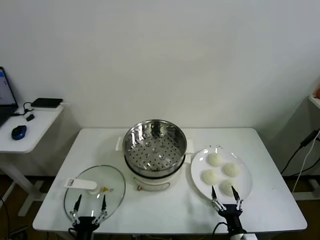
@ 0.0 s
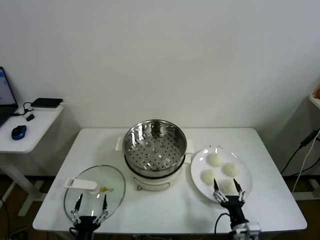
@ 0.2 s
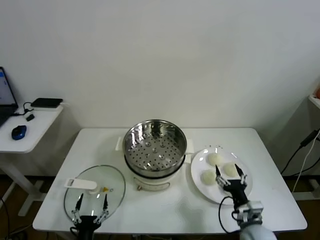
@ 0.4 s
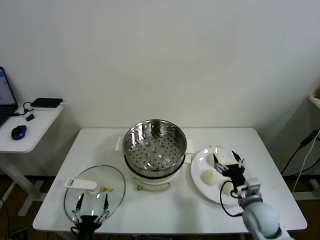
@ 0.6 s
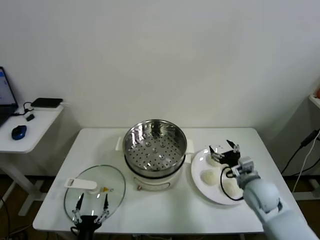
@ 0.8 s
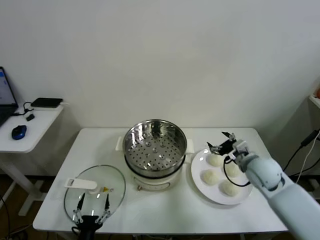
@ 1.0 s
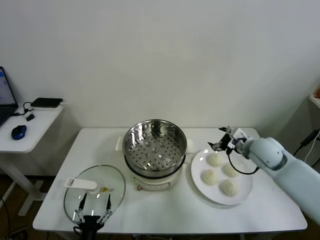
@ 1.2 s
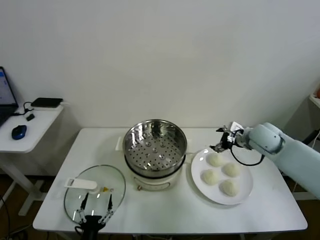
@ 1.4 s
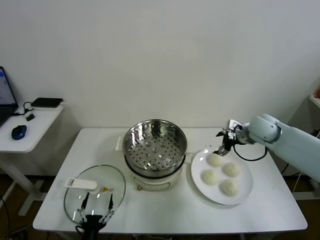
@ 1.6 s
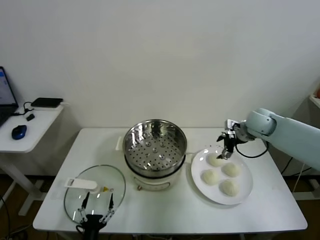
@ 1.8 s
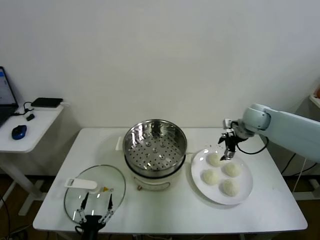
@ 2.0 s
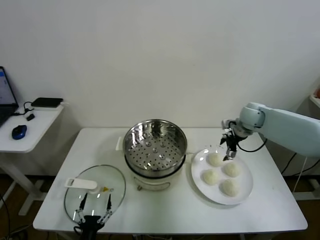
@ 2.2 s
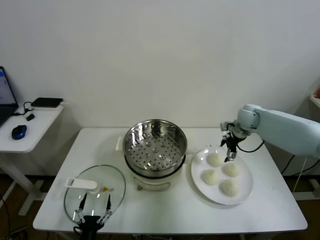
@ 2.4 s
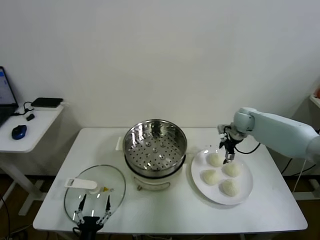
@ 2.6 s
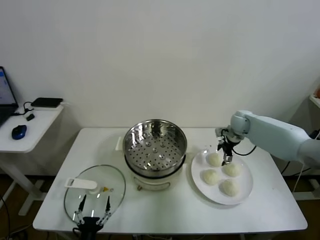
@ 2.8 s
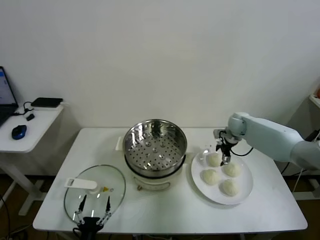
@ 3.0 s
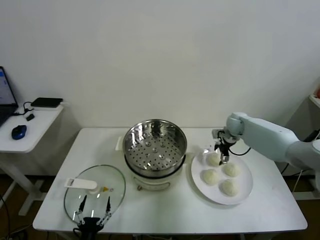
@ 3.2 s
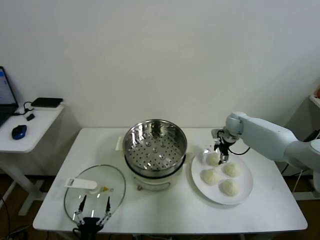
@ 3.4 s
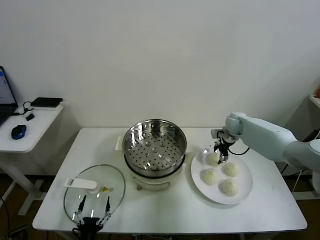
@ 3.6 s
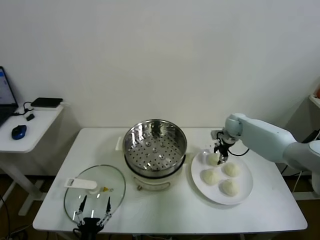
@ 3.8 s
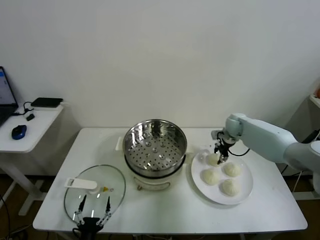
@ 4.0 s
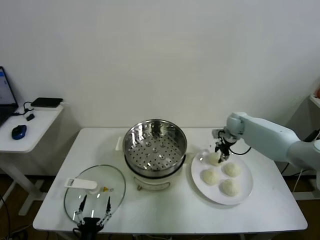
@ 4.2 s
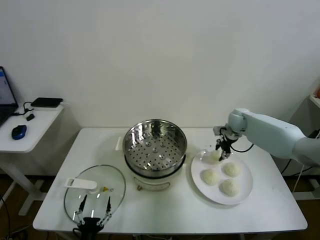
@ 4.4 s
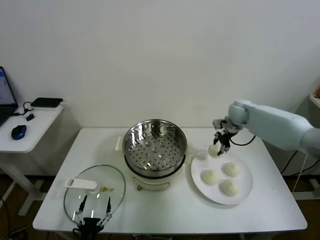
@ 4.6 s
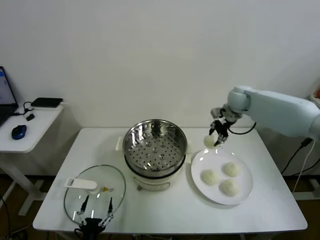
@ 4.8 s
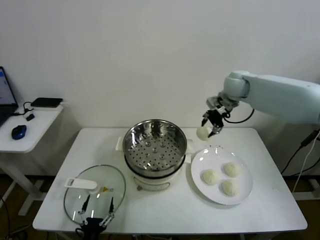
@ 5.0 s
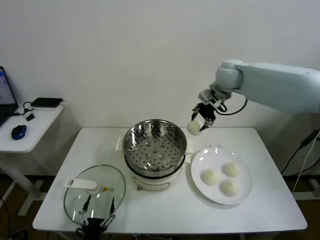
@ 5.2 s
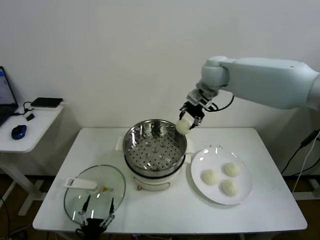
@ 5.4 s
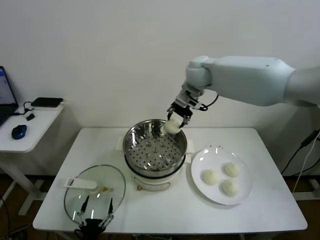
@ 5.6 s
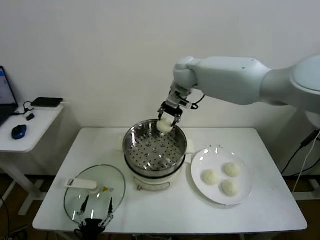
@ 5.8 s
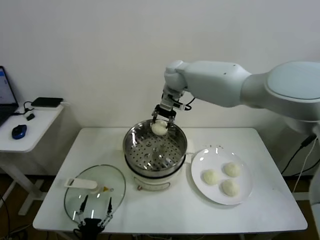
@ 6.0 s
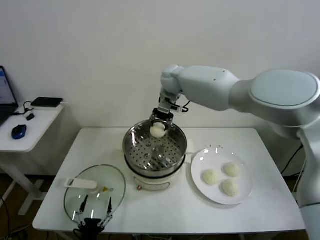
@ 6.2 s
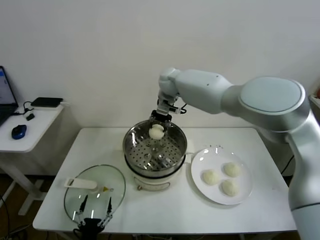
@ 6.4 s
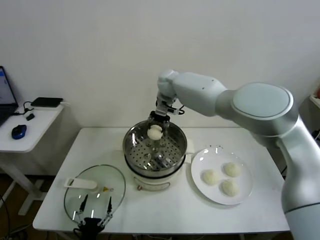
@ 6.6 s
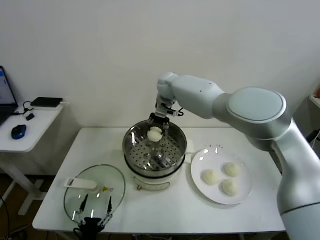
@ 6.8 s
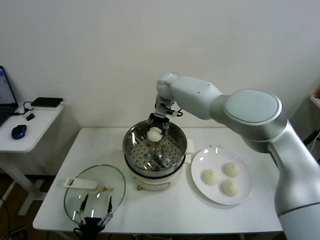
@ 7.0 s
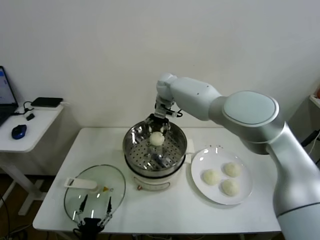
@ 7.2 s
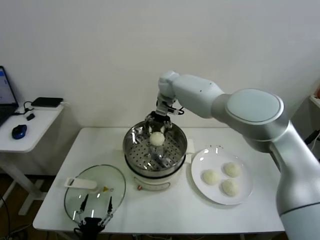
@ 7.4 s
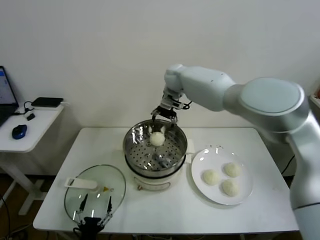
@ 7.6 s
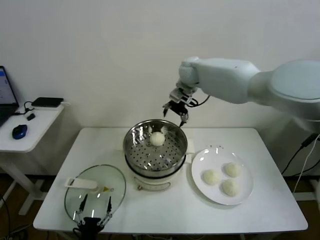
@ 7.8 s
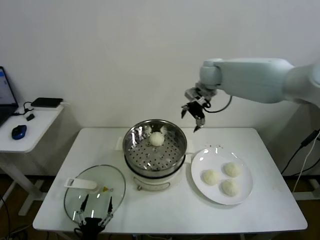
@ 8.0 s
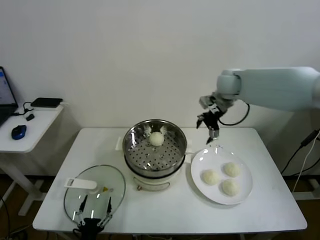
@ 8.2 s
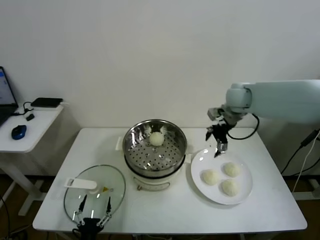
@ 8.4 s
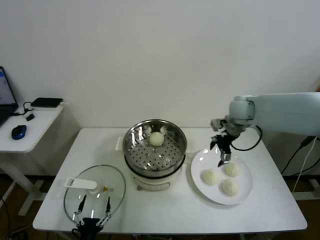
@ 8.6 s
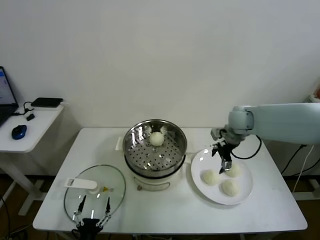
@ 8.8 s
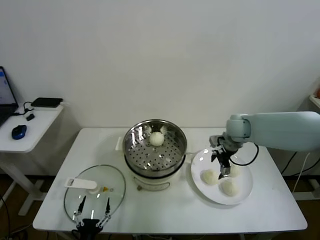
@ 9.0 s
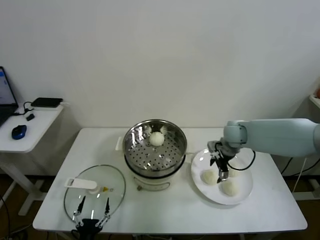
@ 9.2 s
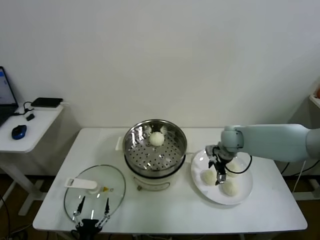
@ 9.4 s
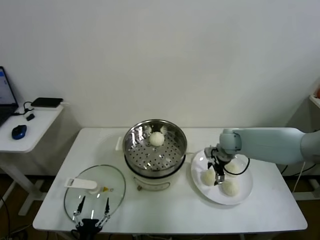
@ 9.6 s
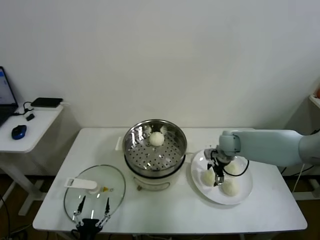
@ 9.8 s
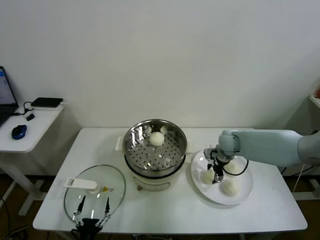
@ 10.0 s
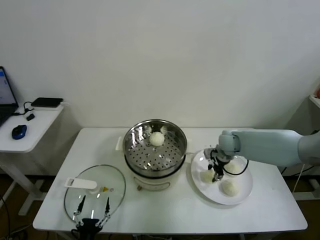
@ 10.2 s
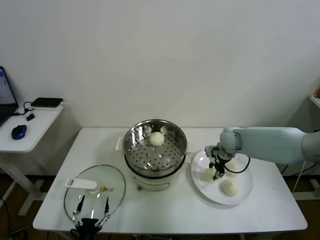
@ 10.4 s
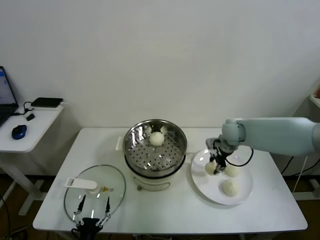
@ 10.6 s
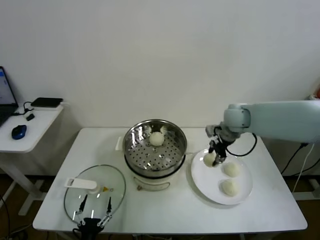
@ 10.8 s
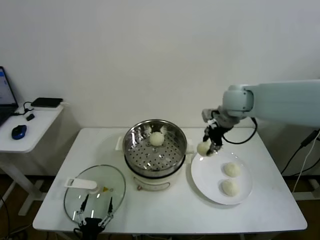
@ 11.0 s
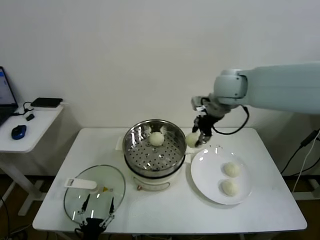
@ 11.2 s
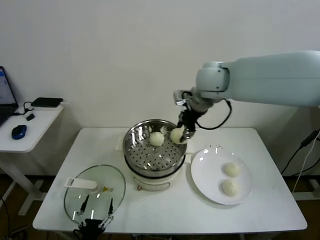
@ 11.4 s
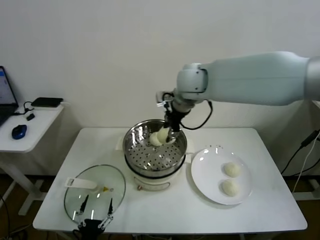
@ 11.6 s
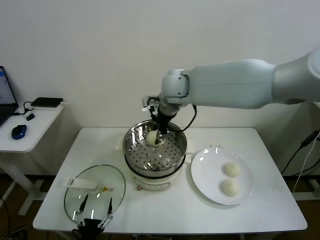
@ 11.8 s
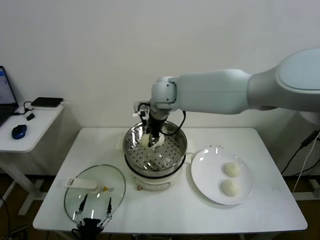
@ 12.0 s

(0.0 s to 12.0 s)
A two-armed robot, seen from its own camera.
Task of the whole recording: take steamed baozi put them in steamer.
Step, 0.0 s - 4.0 s: Grasp the baozi in the plate with right gripper.
Step, 4.2 s - 7.2 s: Place the baozi on the steamer with right gripper.
Step, 7.6 s - 10.0 s: Grasp the baozi in the plate with right gripper.
1.6 s - 3.0 s: The right gripper moves forward and downward, roughly 15 cm.
3.0 s - 4.4 s: The right gripper closes its fingers.
4.4 s - 6.0 s: The right gripper is displaced to the left and upward by some 35 cm.
6.0 s - 7.6 s: The right gripper opens.
7.6 s - 9.0 s: The right gripper travels to the right, backward and downward by about 30 cm.
9.0 s - 10.4 s: The right gripper shifts roughly 10 cm downward, and closes its fingers.
10.4 s - 12.0 s: The right gripper heads to the left and upward, covering roughly 35 cm.

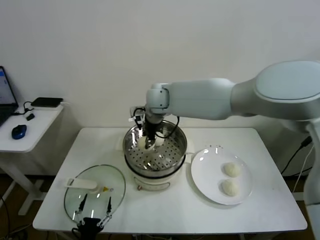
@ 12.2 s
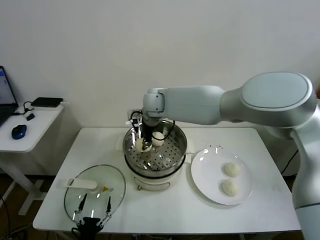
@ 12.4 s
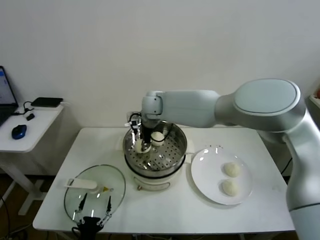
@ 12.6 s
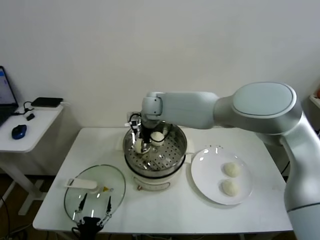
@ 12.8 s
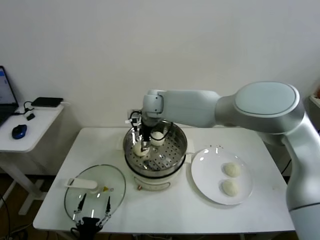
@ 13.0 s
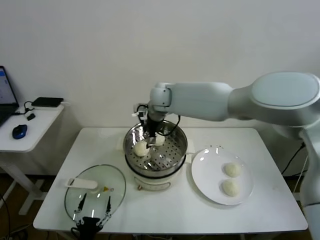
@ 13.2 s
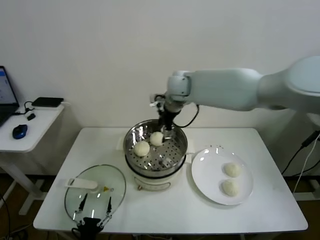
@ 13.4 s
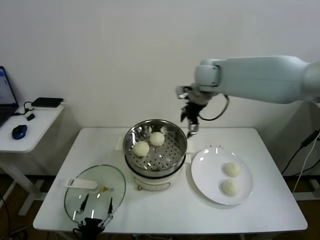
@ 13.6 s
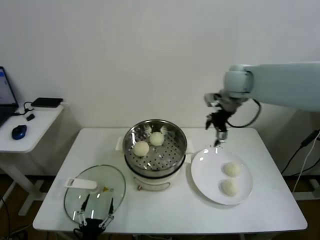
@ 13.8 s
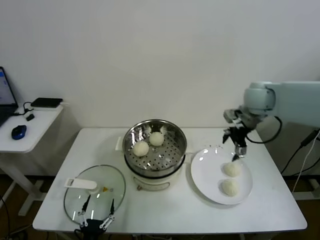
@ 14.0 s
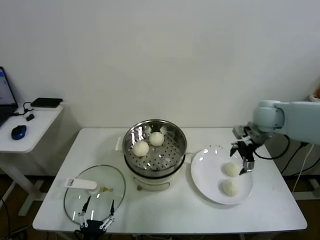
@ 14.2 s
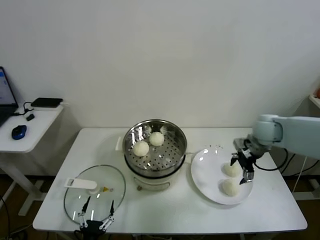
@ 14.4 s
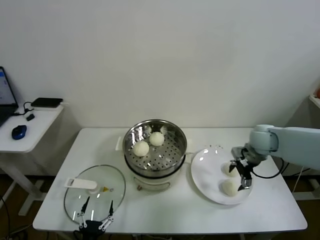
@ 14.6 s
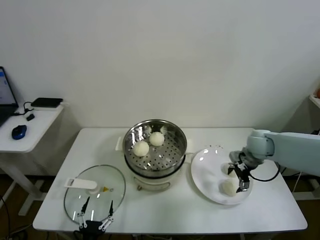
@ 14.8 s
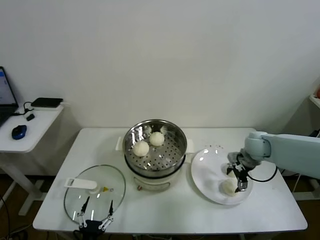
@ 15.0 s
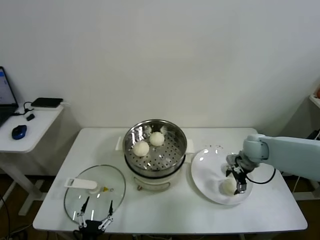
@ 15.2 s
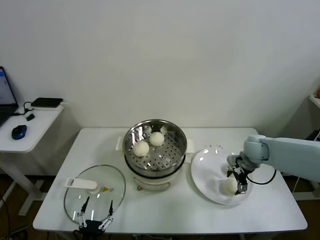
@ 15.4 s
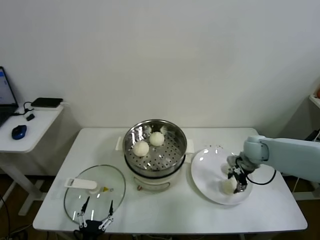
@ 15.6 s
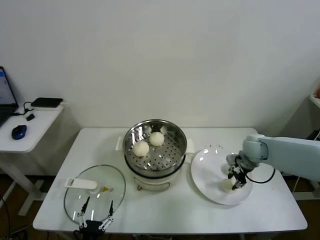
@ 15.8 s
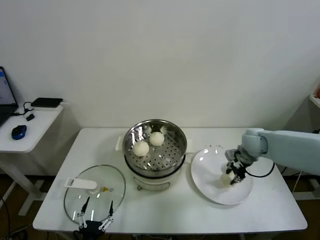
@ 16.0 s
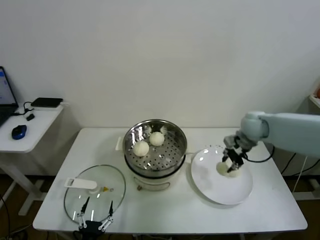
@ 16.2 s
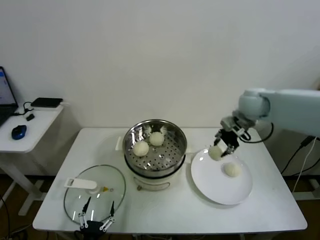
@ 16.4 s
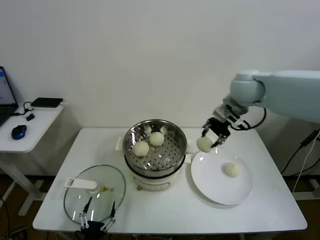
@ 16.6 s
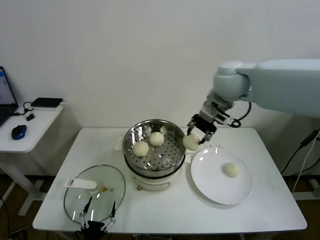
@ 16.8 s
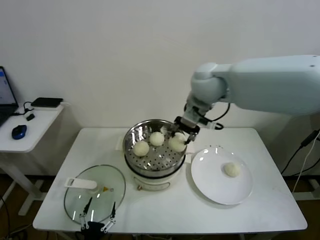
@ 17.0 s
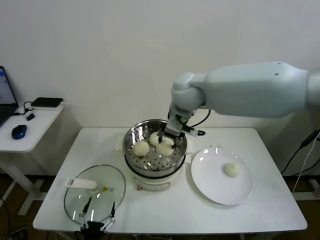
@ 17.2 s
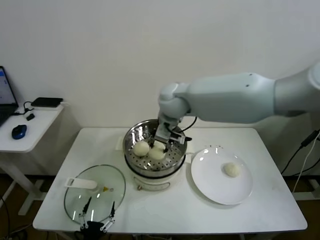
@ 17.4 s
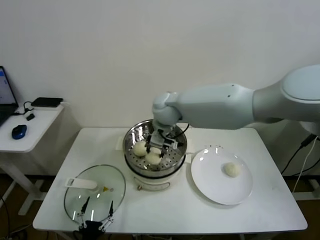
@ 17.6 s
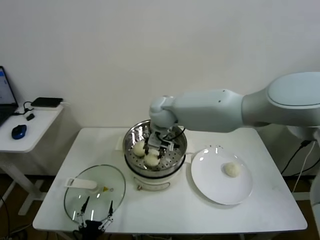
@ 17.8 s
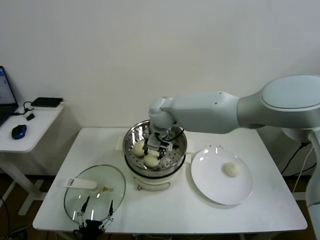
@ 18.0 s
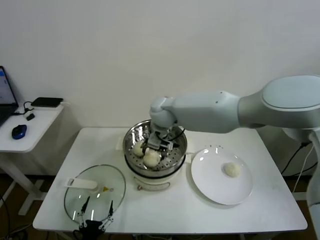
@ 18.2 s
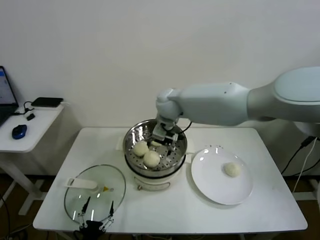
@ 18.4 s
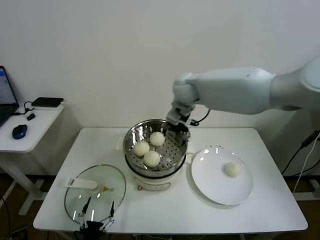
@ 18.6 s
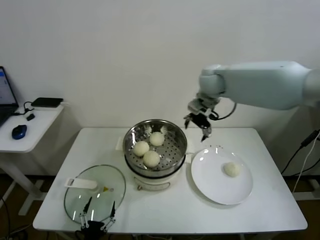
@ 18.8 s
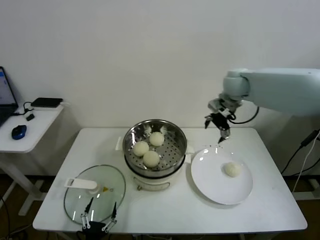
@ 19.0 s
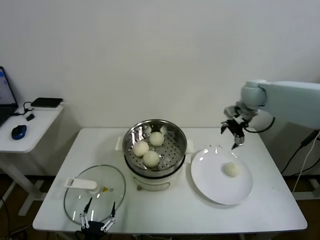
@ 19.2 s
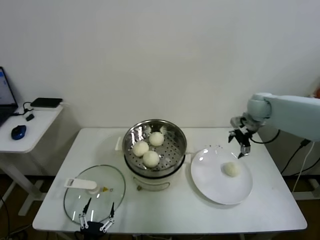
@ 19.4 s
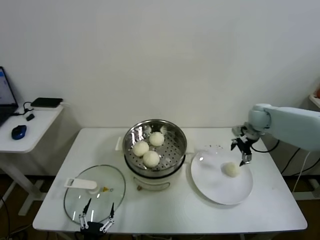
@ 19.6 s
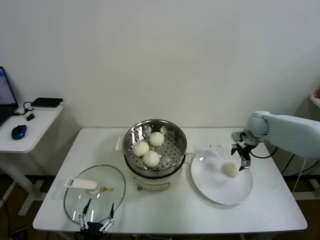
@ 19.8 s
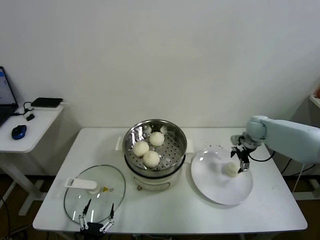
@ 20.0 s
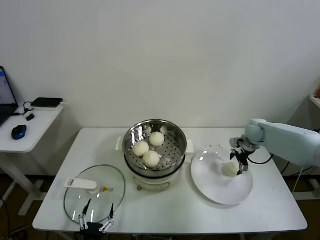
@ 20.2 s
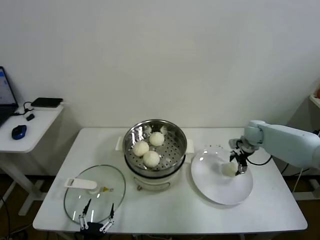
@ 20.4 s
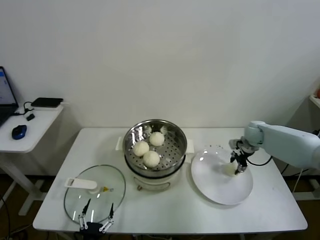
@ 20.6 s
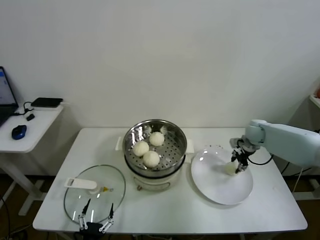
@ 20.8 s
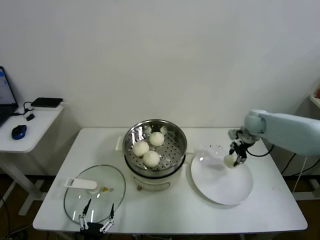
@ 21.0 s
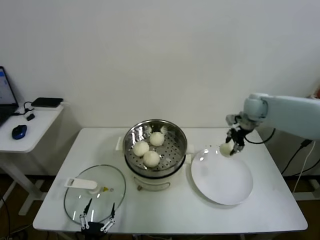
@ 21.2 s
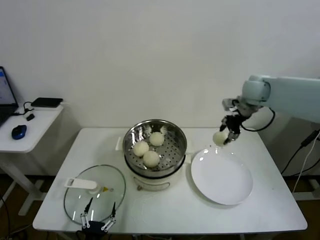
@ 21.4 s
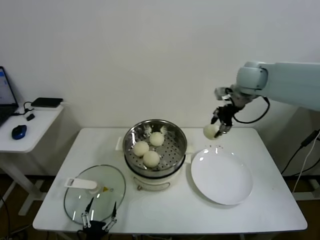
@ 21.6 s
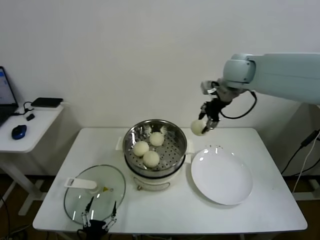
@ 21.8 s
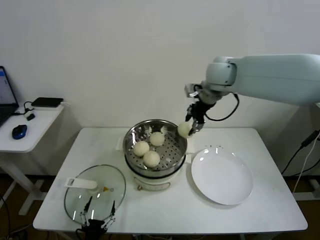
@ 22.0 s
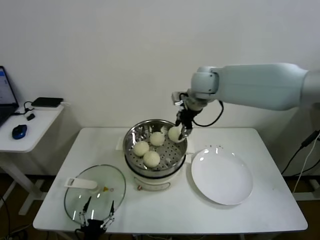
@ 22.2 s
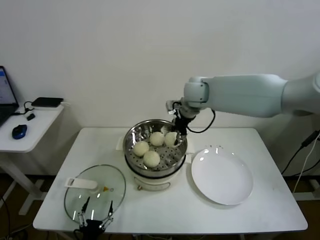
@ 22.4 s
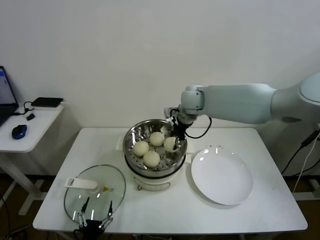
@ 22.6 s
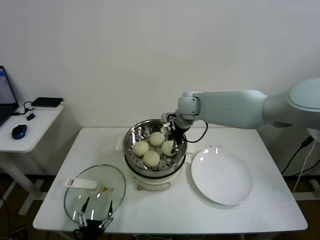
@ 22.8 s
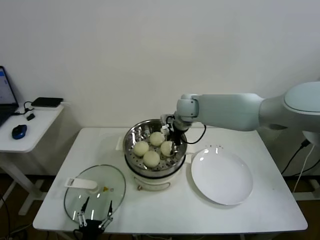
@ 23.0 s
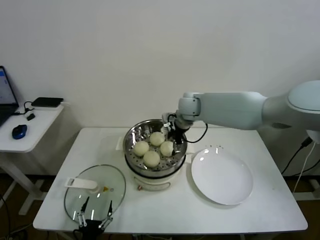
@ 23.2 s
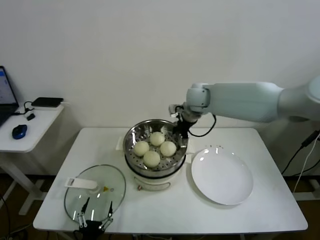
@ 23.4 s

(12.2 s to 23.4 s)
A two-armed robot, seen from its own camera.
Task of the whole recording: take steamed baozi put them in steamer.
Step, 13.2 s - 15.6 s: Grasp the baozi in the plate with right gripper.
Step, 16.0 s - 18.2 s: Place the baozi on the steamer with right gripper.
Step, 18.4 s - 20.6 s: Grasp the baozi in the plate with right gripper.
Step, 20.8 s - 23.2 s: Place the baozi on the steamer with right gripper.
12.2 s - 13.8 s: The right gripper is displaced to the right by approximately 25 cm, and opens.
13.8 s - 15.4 s: The right gripper travels downward and to the right by about 30 cm.
15.4 s - 17.0 s: The right gripper heads upward and to the left, covering about 35 cm, and closes up.
17.0 s - 18.6 s: The right gripper moves downward, to the left and forward, about 10 cm, and opens.
18.6 s - 20.2 s: The right gripper heads to the right and downward, covering some 35 cm.
20.2 s - 21.8 s: The right gripper heads upward and to the left, covering some 30 cm, and closes.
21.8 s - 23.4 s: The right gripper heads to the left and downward, covering roughly 15 cm, and opens up.
